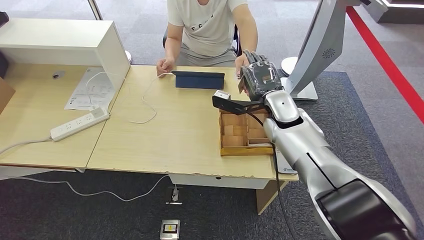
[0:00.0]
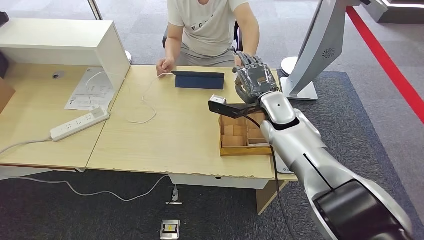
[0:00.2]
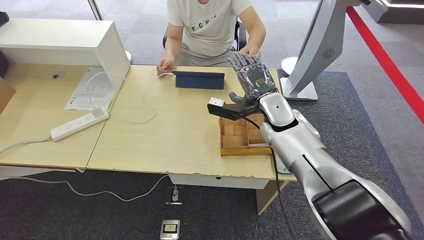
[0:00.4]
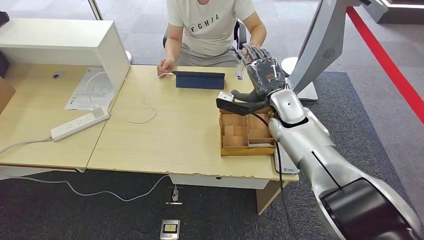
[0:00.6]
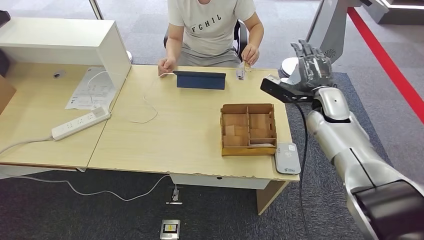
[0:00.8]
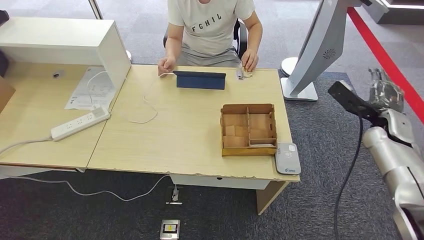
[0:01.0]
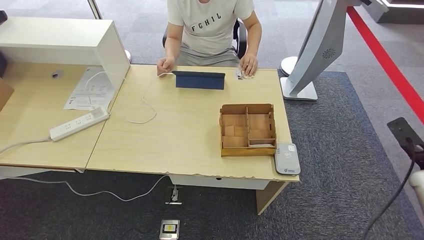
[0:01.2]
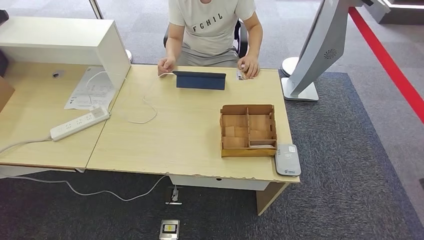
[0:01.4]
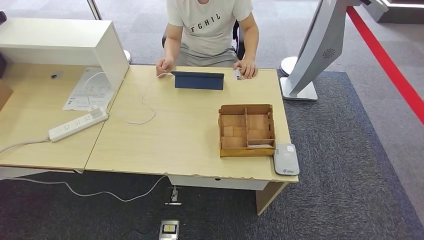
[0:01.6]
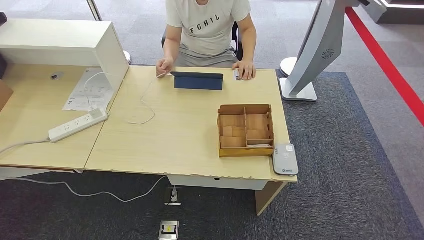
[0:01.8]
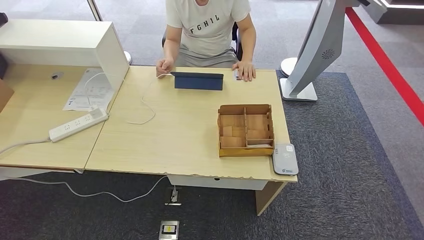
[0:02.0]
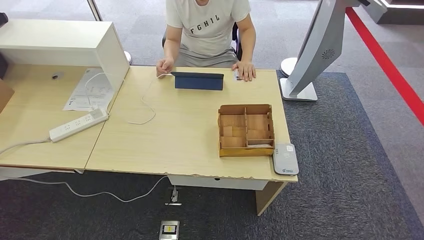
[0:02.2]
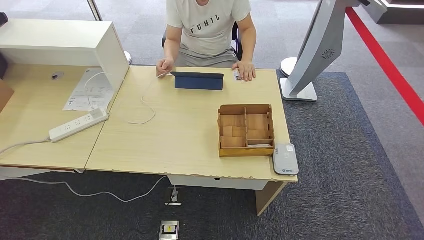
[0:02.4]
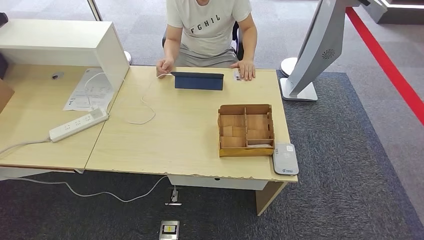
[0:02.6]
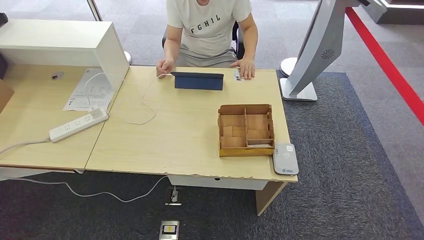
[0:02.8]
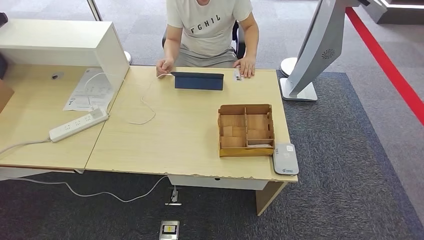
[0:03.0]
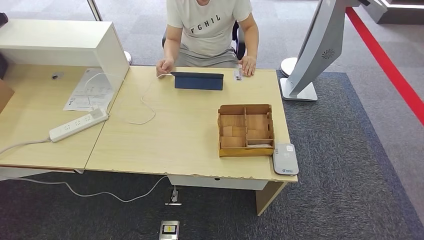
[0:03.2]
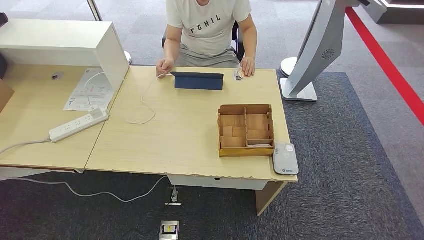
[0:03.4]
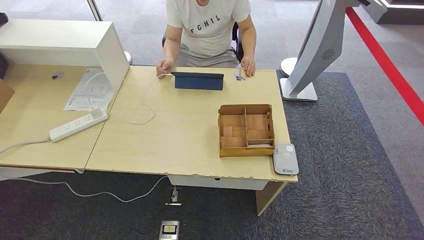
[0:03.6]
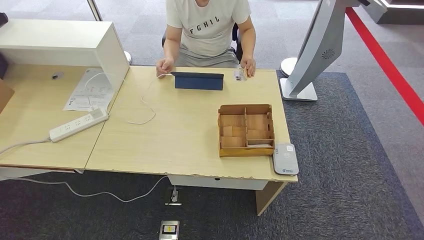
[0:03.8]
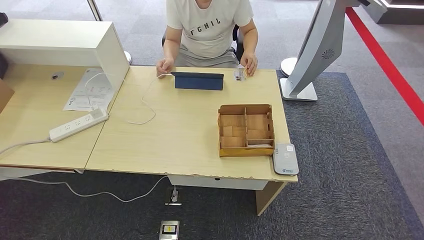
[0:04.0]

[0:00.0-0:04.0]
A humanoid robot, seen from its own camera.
Step, 0:00.0 to 0:04.0: Hand the room key to the person.
0:00.0 to 0:01.4: The right hand heads to the right and backward, covering some 50 cm.
0:01.4 to 0:02.6: The right hand moves to the left, downward and backward, some 30 cm.
